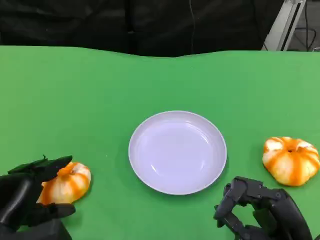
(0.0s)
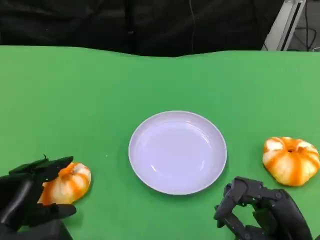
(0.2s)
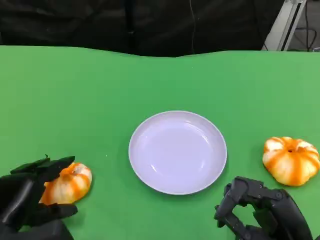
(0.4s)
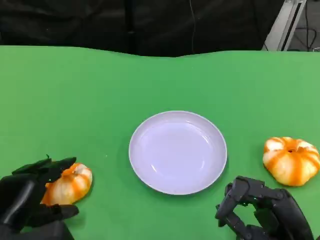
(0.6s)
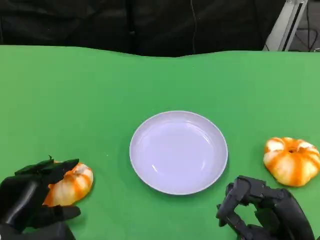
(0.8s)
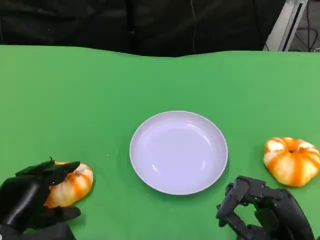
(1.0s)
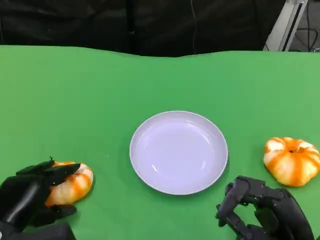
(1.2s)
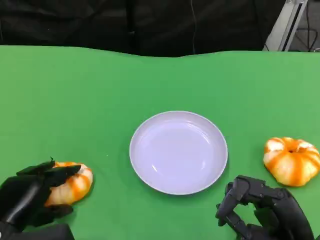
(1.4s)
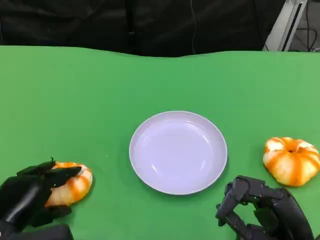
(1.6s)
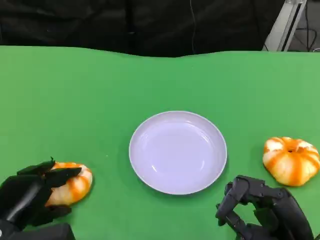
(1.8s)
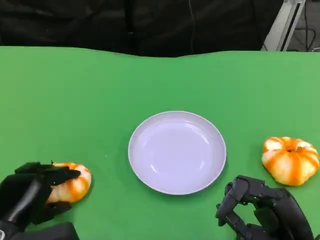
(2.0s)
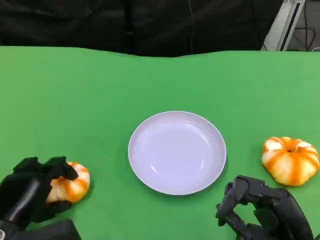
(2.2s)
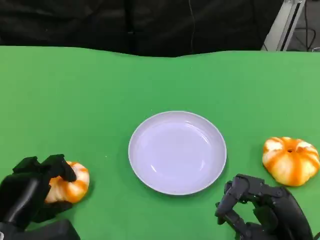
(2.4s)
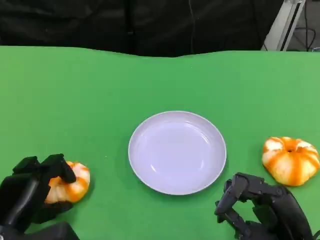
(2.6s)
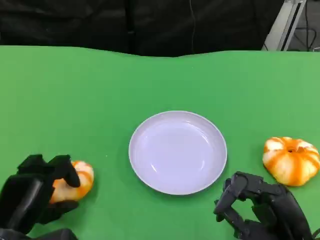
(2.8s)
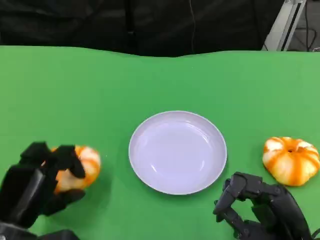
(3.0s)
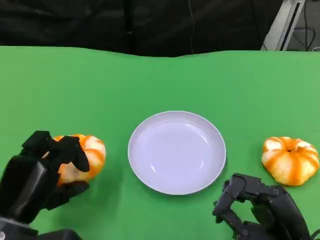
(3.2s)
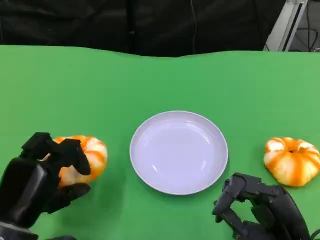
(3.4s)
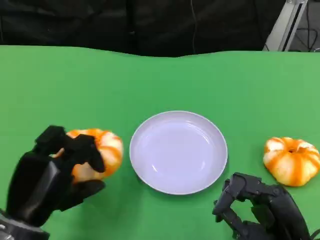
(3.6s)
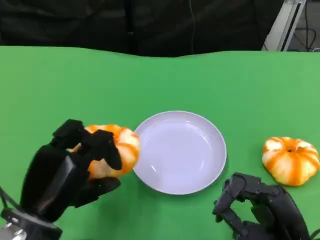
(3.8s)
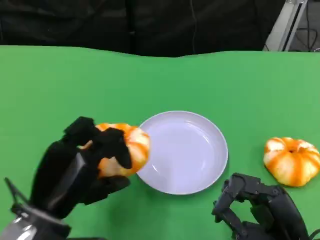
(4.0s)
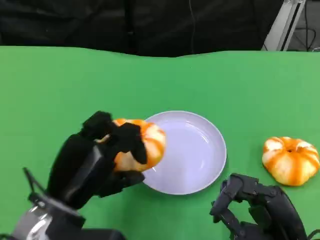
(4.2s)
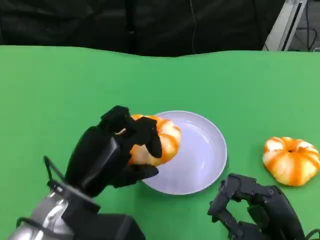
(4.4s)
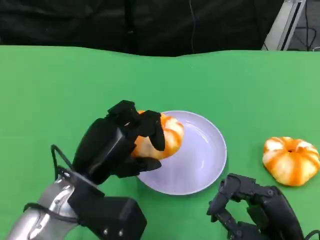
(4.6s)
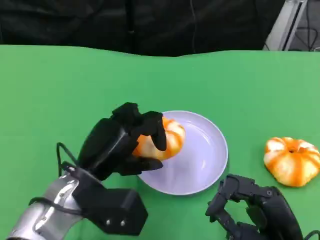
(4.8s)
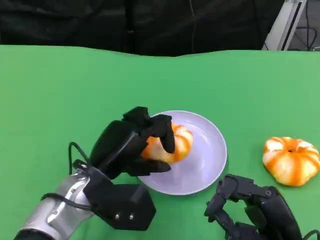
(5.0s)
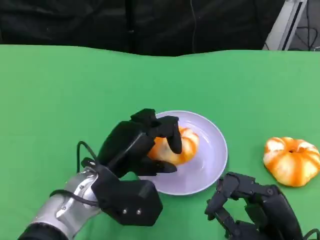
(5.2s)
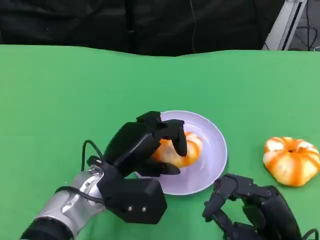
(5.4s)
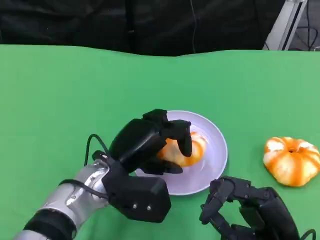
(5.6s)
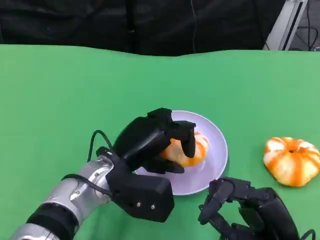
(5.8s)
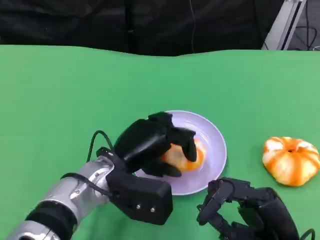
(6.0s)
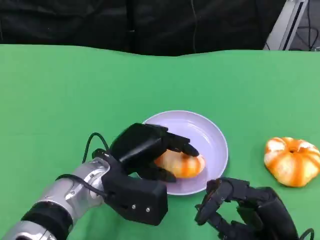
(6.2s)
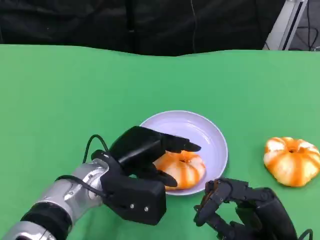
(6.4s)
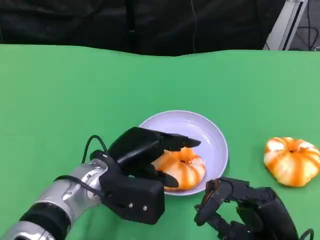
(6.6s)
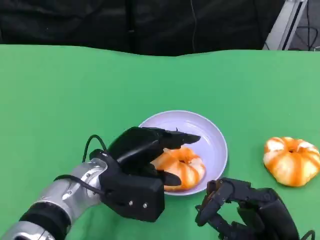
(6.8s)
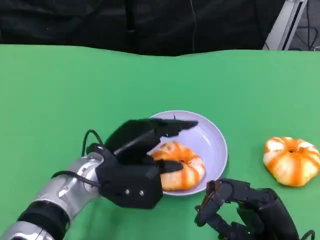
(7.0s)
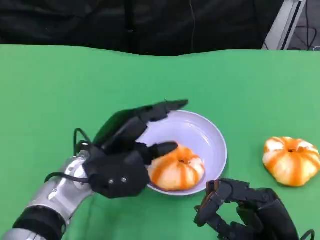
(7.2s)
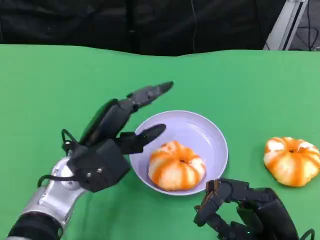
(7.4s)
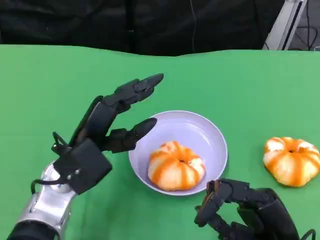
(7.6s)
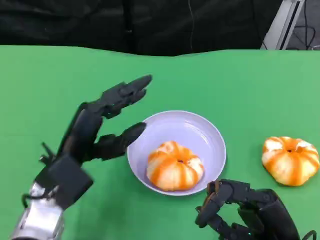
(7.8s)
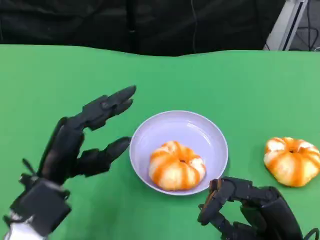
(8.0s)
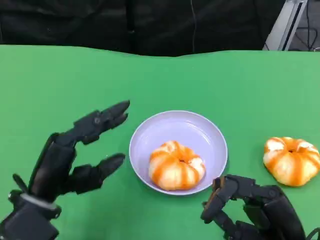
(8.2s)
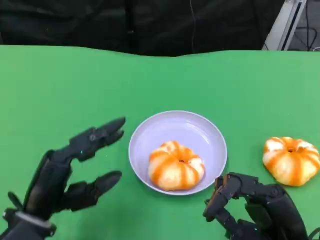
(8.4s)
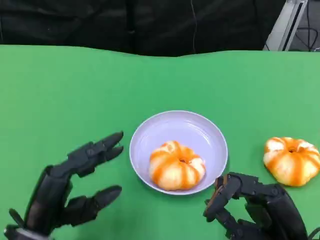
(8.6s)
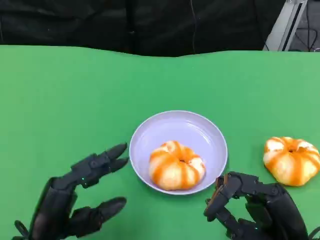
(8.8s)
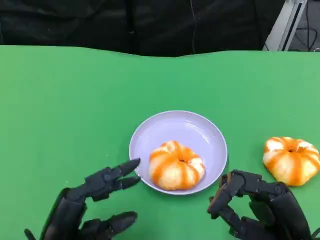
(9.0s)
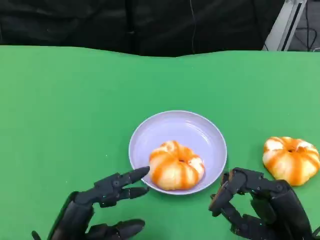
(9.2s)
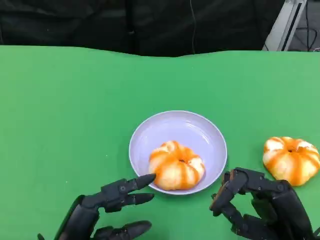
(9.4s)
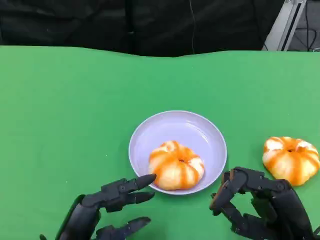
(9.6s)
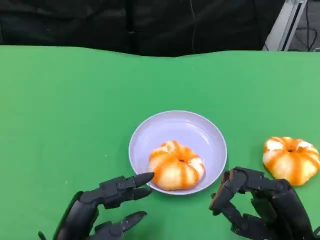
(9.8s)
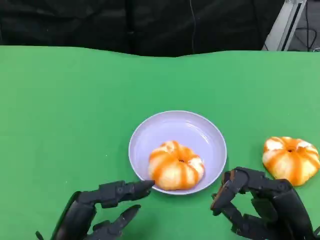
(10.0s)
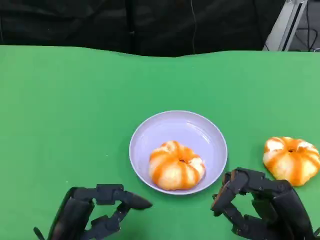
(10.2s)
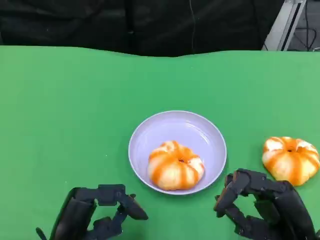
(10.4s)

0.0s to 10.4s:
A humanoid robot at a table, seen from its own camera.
Task of the whole recording: Grasp the bread from the table and place it into the plate.
0.0s to 1.4s: The hands move only a little.
3.0s to 4.4s: The left hand goes some 10 cm to the right.
4.4s to 6.0s: The left hand ends up some 5 cm from where it was.
7.4s to 9.0s: The left hand moves backward and downward, roughly 15 cm.
9.0s to 10.4s: There are only small adjustments of the hands.

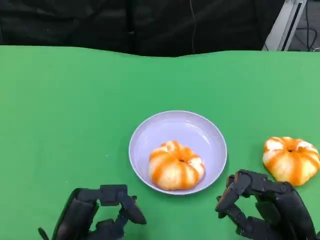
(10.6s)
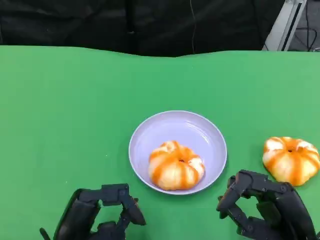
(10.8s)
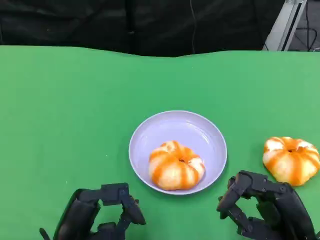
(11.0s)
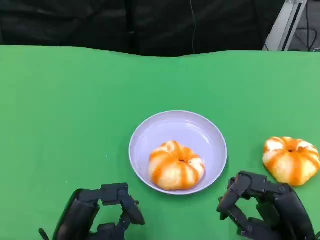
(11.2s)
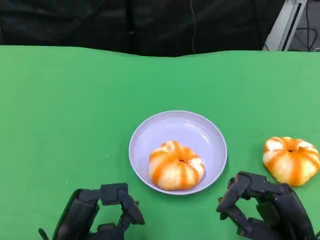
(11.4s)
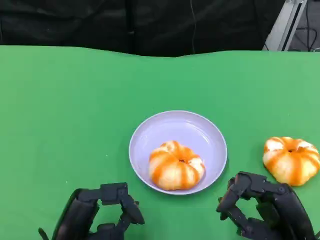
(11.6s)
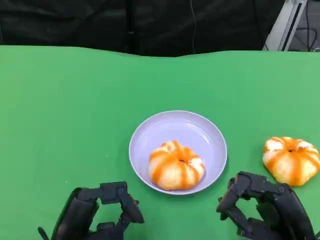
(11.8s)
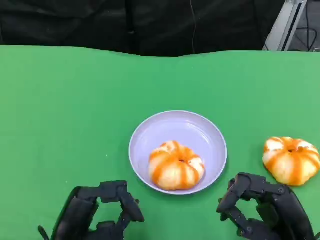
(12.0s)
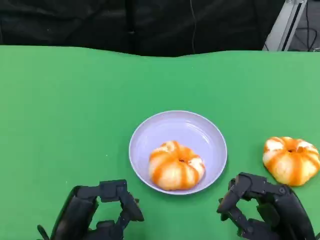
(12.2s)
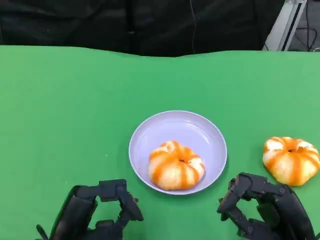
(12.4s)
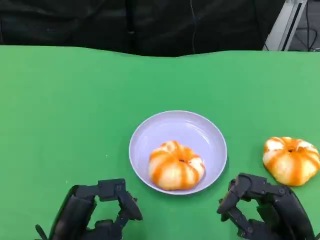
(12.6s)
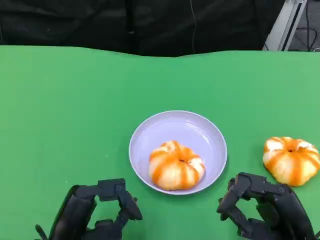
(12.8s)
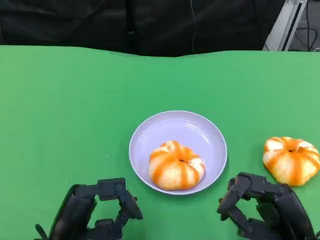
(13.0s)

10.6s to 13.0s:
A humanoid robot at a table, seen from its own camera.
Task of the whole recording: Grasp the bread from the table and place it into the plate.
10.6s to 13.0s: Neither hand changes place.
